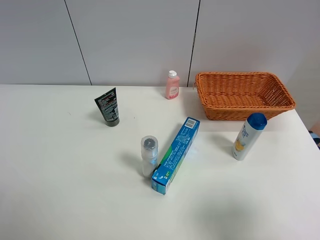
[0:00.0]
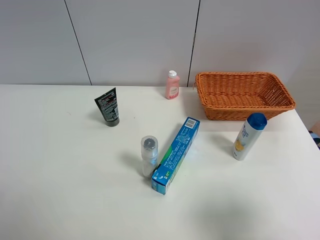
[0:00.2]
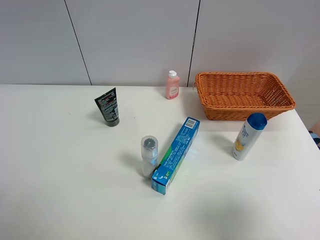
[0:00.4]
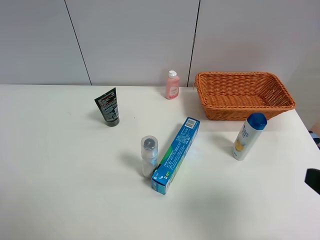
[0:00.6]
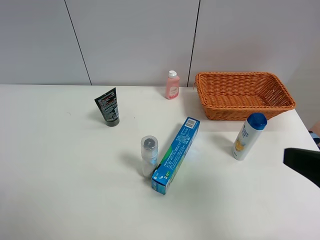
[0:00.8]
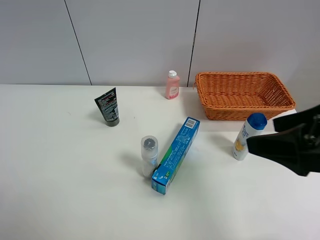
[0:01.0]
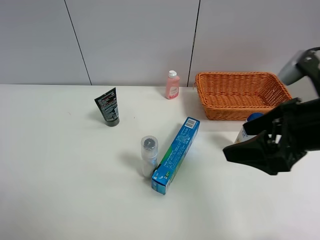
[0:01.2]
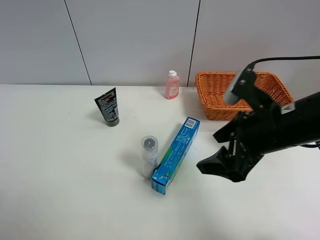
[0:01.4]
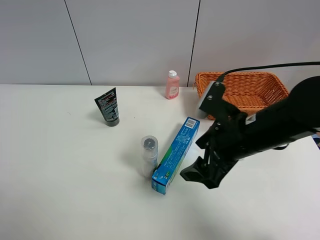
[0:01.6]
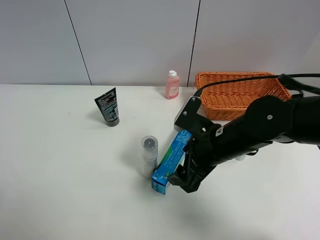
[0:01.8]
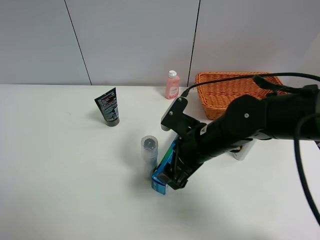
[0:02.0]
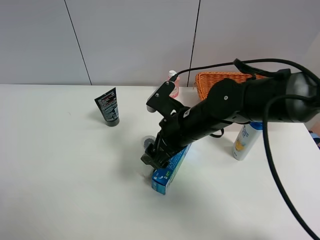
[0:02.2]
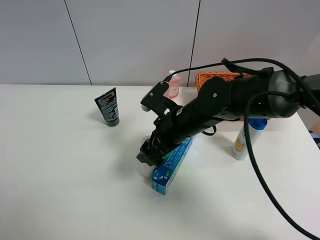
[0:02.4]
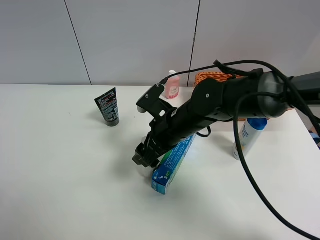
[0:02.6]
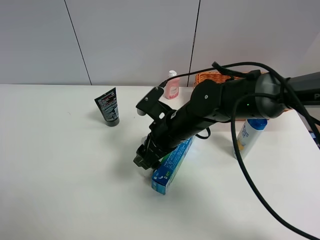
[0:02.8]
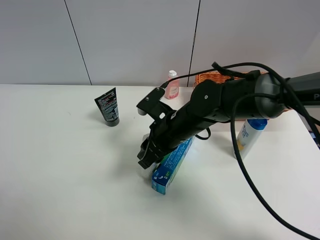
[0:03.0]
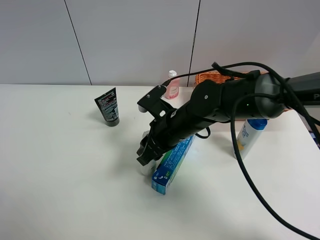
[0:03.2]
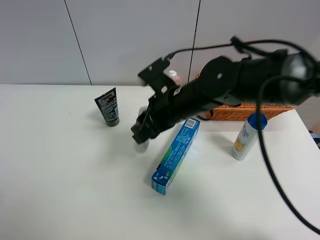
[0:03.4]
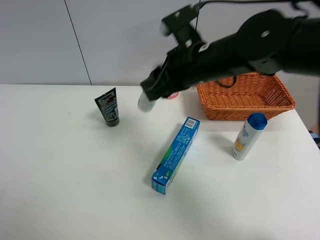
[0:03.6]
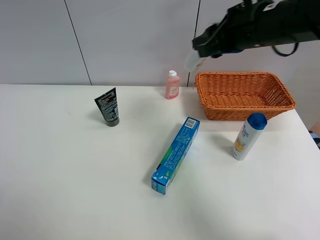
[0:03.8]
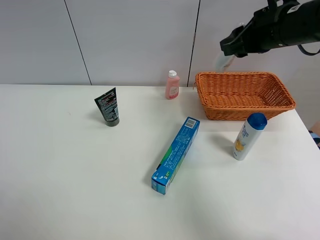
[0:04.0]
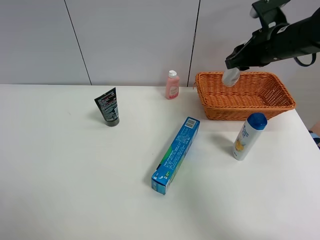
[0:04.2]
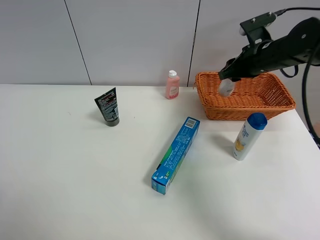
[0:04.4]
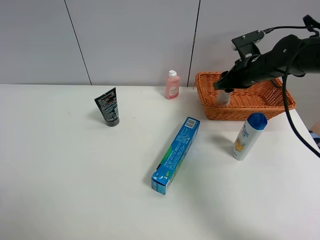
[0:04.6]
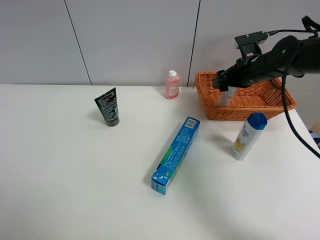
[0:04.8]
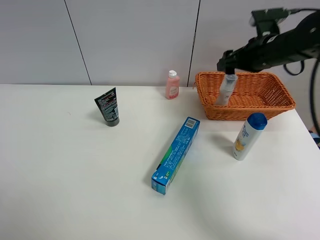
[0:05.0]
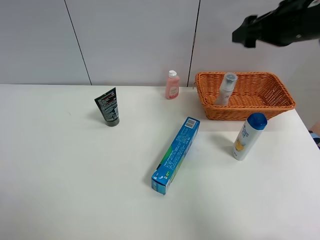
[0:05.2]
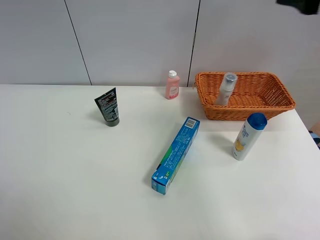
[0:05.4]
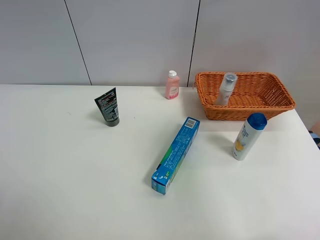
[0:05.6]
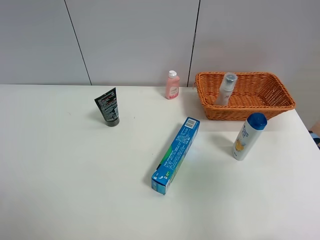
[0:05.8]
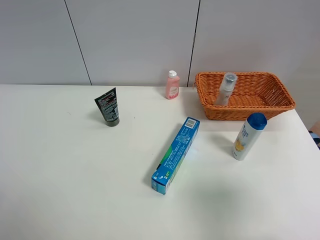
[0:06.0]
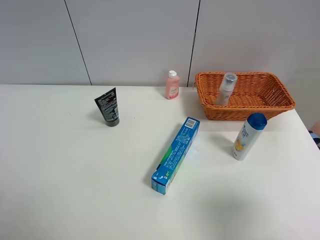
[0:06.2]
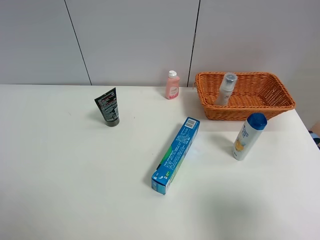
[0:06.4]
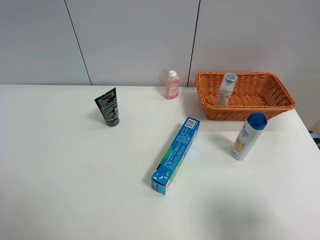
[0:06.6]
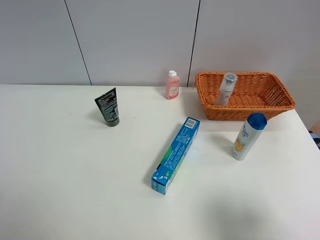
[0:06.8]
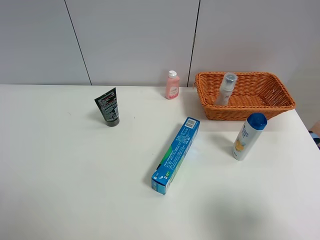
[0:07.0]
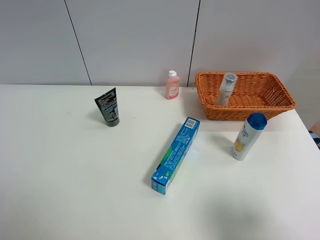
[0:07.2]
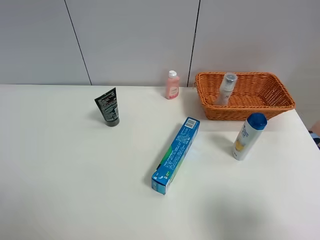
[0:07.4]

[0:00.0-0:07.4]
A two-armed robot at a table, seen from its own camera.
Task of the whole recording: Place the object closest to the toothpaste in the basket.
Step, 0:00.0 to 0:03.0: Grasp the cleaning agent with right gripper.
Step, 0:03.2 to 0:05.0: Place the cleaning agent in the basket with right gripper.
0:00.0 to 0:01.4: The right gripper goes roughly 20 cm forward and to the left.
0:01.4 to 0:03.0: The right gripper travels to the left, downward and forward by about 15 cm, and closes up.
0:03.0 to 0:04.4: The right gripper is displaced to the right, forward and upward by approximately 25 cm.
0:04.4 to 0:06.0: The right gripper is displaced backward by some 35 cm, and opens up.
0:06.0 to 0:07.4: The grippers stay close to where they were, moving slightly.
